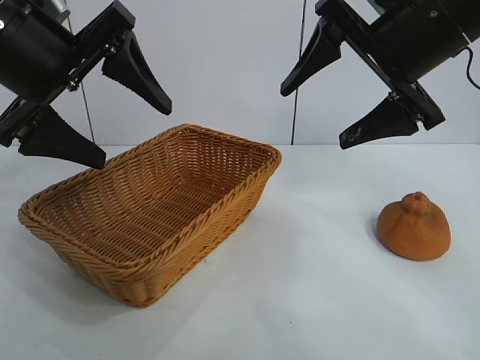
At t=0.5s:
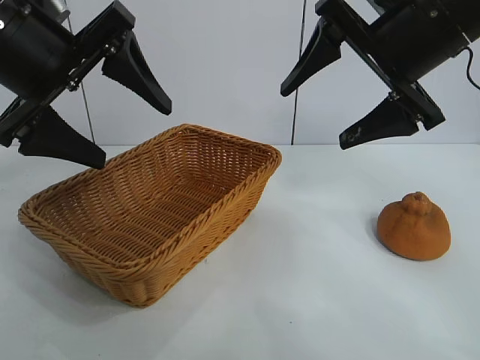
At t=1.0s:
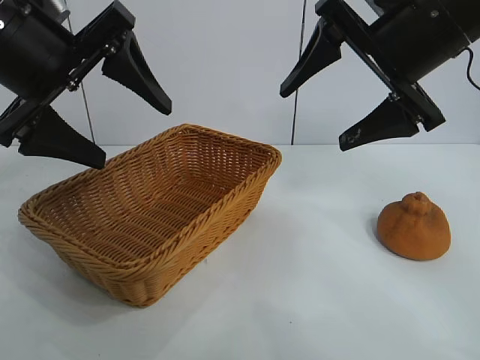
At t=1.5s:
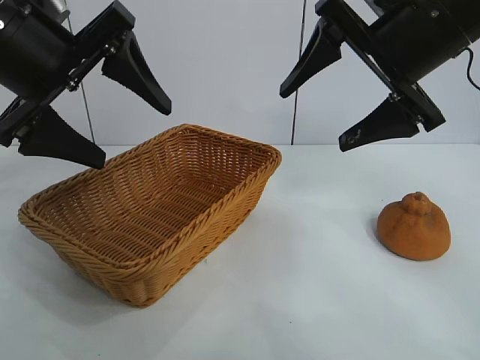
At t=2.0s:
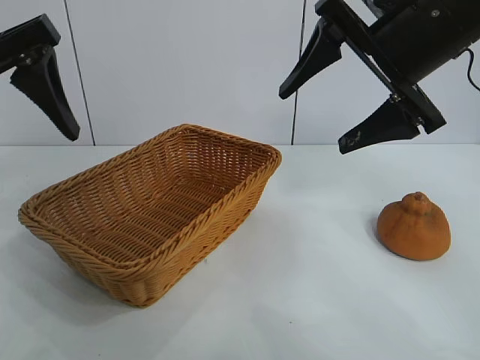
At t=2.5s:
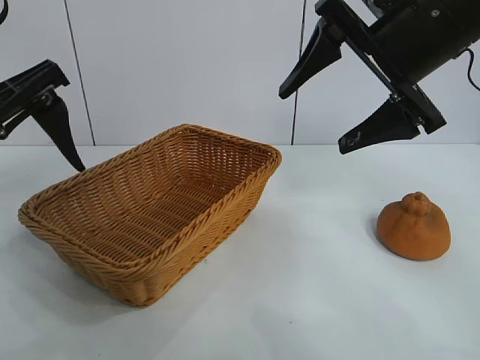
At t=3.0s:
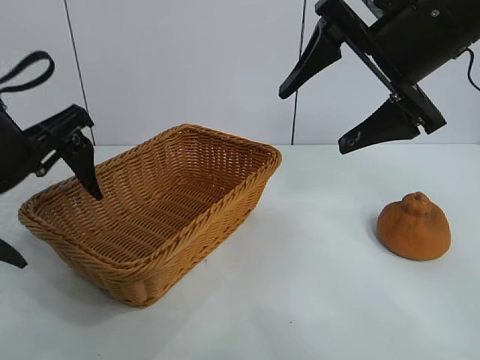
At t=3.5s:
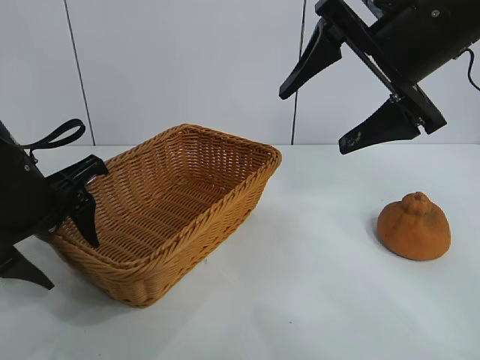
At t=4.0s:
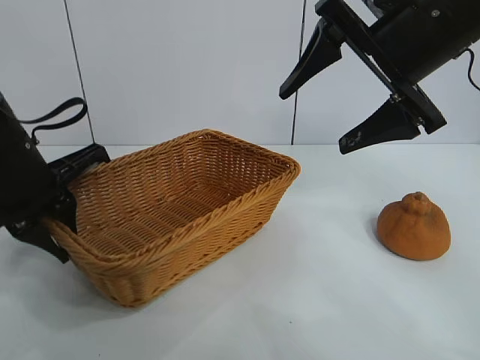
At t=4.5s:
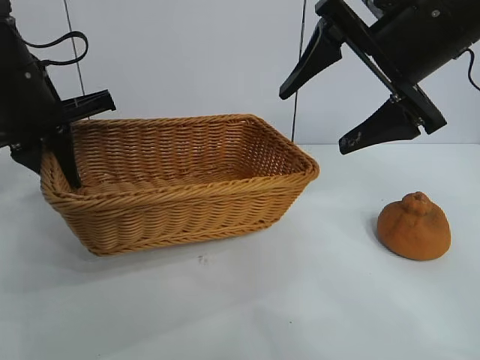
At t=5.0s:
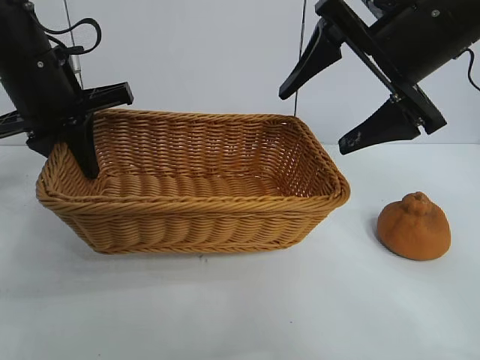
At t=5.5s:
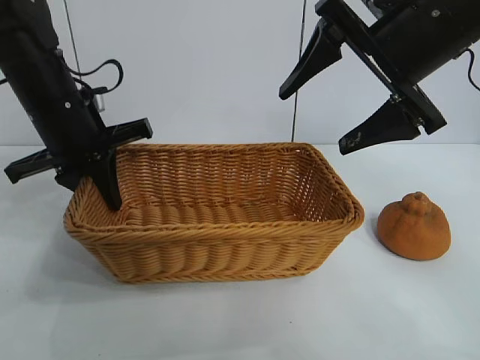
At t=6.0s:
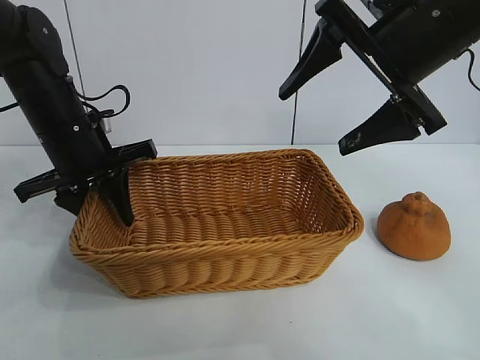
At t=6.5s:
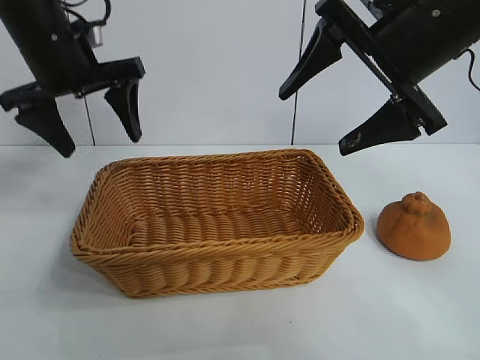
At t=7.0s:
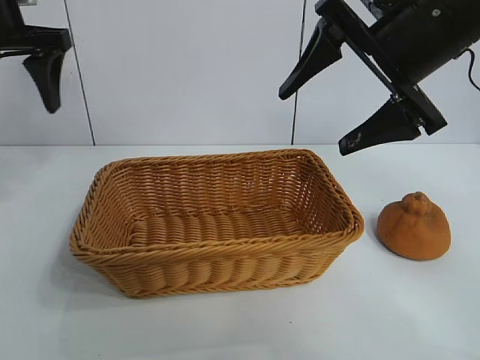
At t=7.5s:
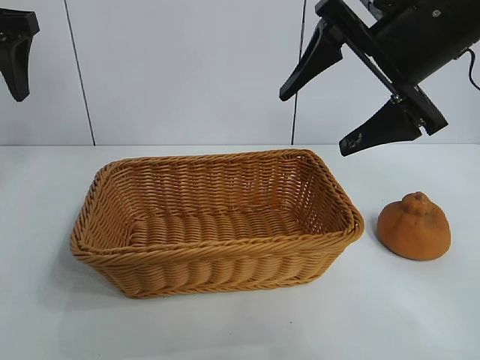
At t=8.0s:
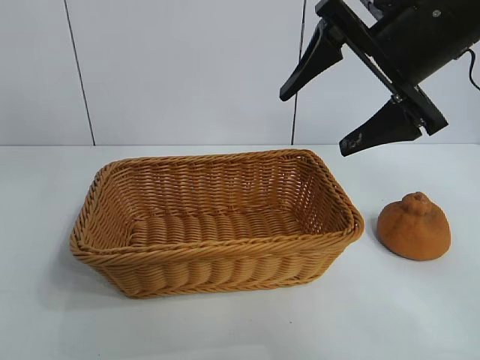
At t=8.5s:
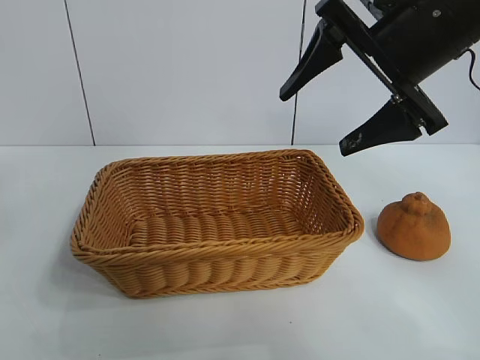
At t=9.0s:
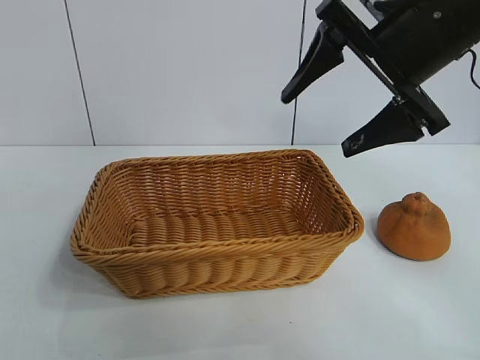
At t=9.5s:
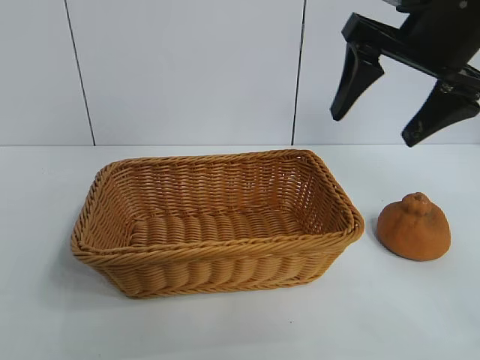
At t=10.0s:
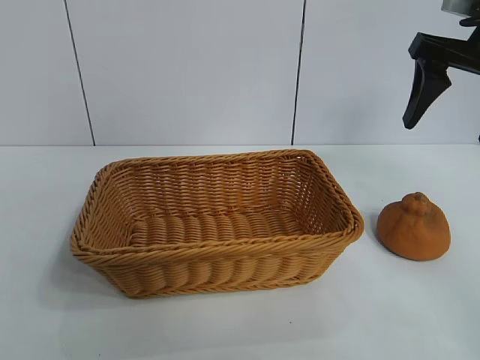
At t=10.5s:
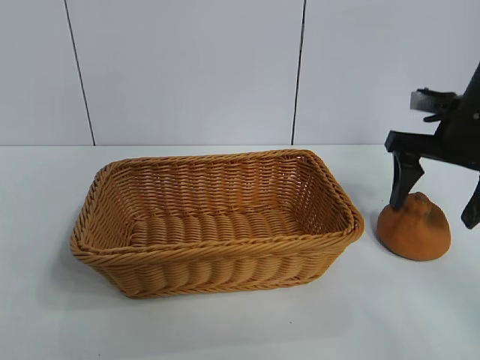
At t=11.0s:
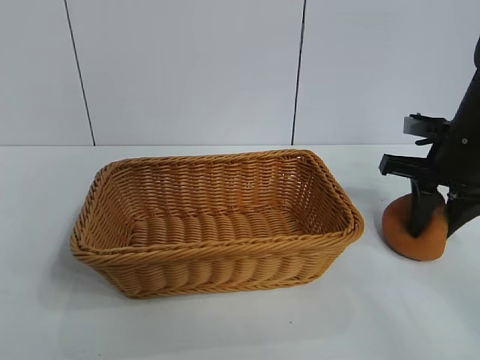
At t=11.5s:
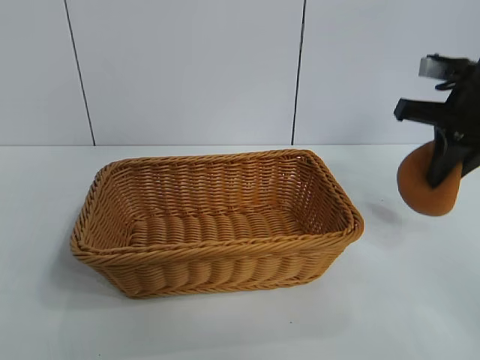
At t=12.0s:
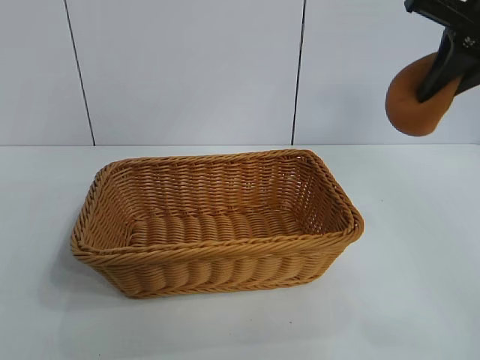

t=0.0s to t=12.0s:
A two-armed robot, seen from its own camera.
Task of the whole recording: pick up the orange and put it into the basket.
Step, t=1.5s to t=3.5s: Grasp the basket with left gripper.
Step, t=4.0s to t=6.0s: Place the basket in the center of view with left gripper.
Step, t=6.5s to t=11.0s: Grasp the orange with right gripper.

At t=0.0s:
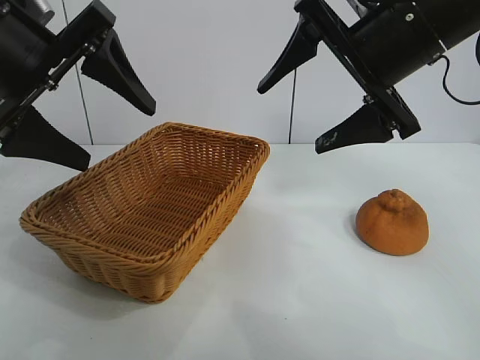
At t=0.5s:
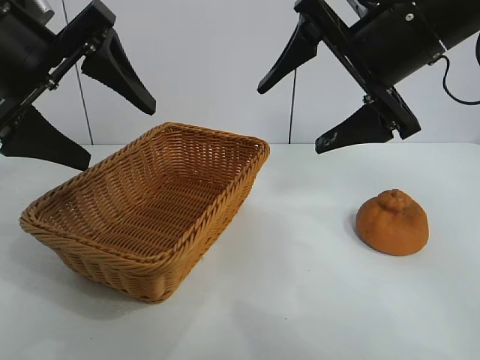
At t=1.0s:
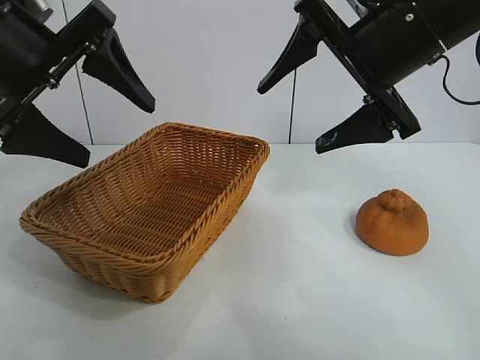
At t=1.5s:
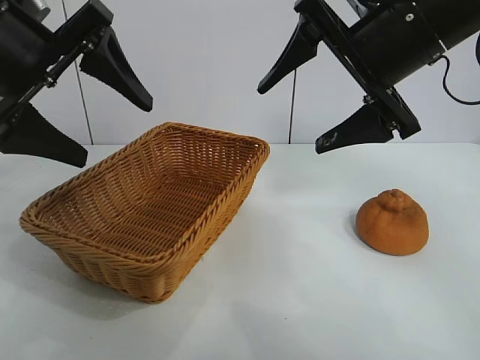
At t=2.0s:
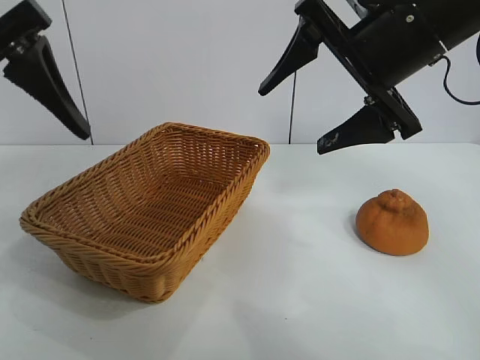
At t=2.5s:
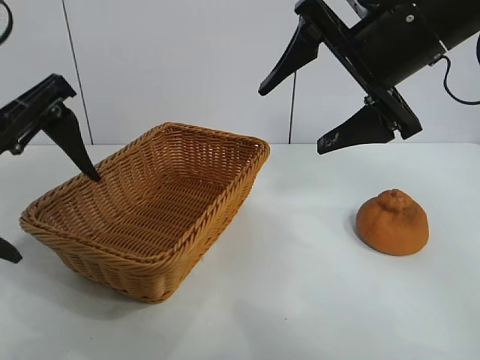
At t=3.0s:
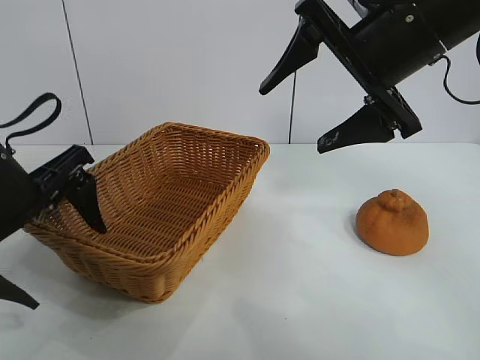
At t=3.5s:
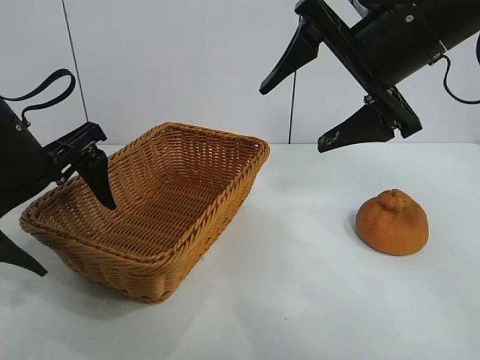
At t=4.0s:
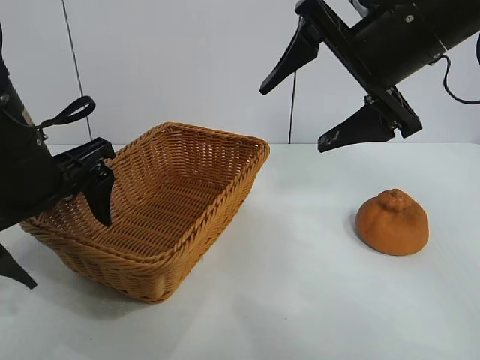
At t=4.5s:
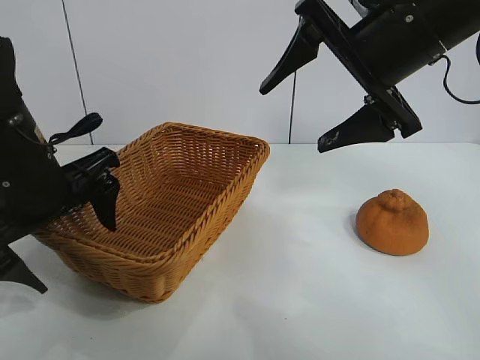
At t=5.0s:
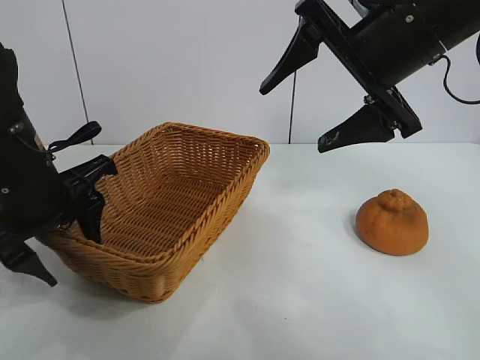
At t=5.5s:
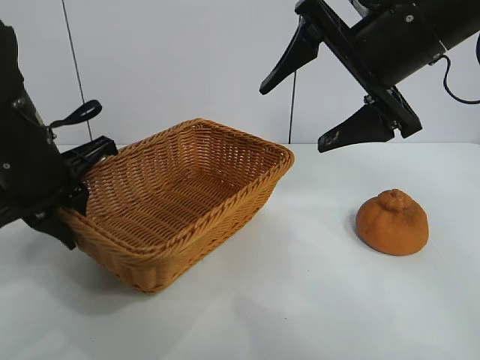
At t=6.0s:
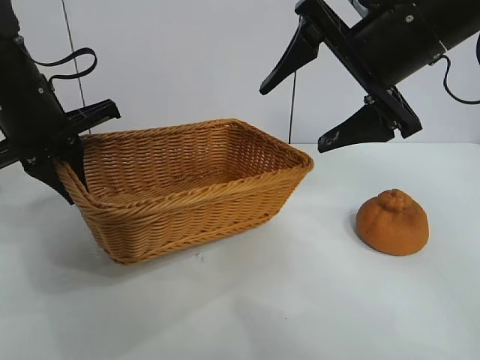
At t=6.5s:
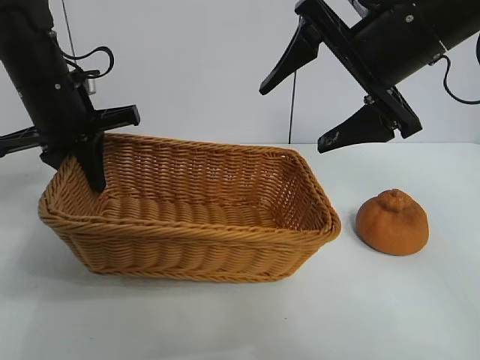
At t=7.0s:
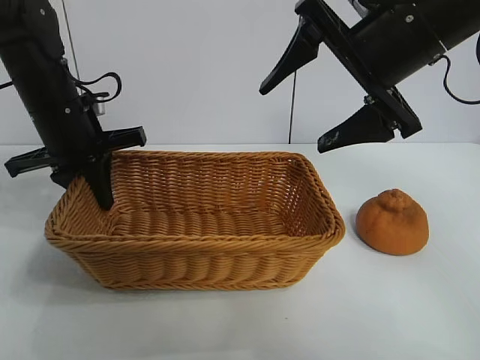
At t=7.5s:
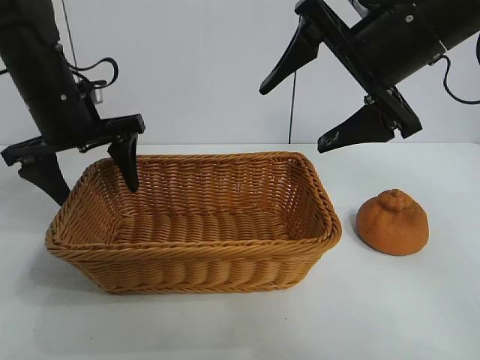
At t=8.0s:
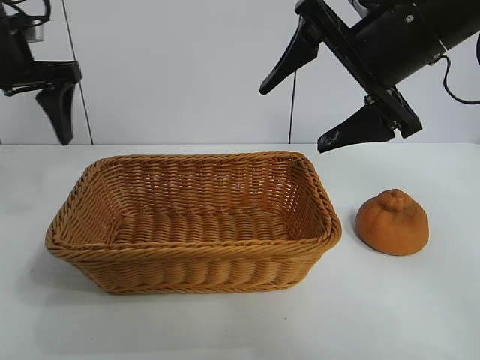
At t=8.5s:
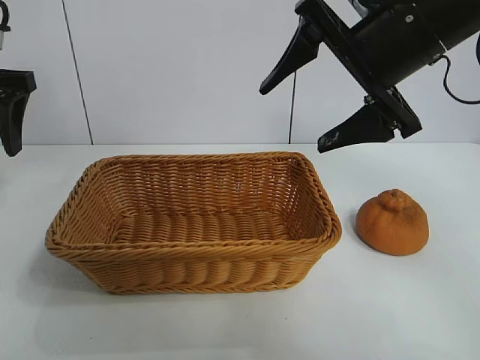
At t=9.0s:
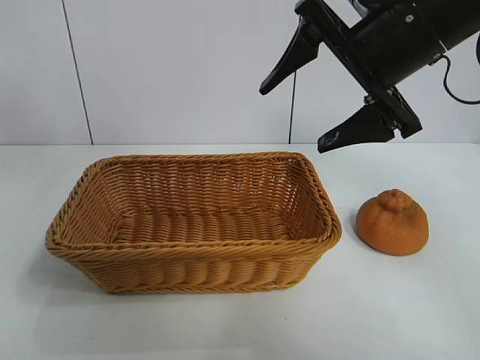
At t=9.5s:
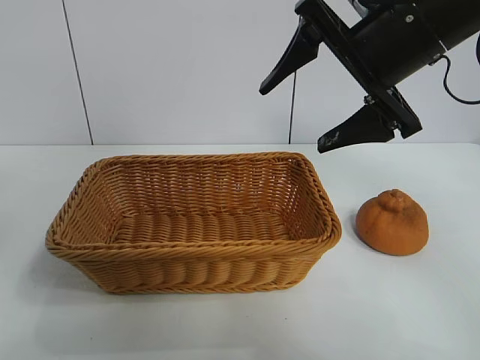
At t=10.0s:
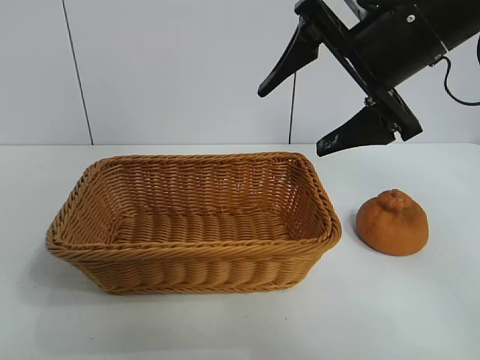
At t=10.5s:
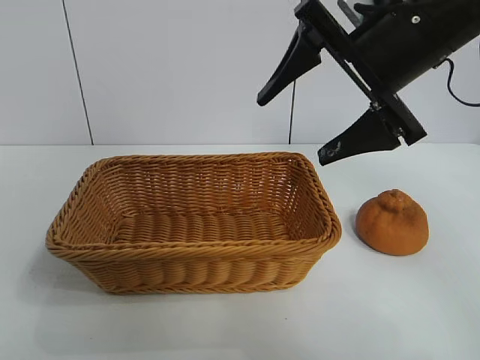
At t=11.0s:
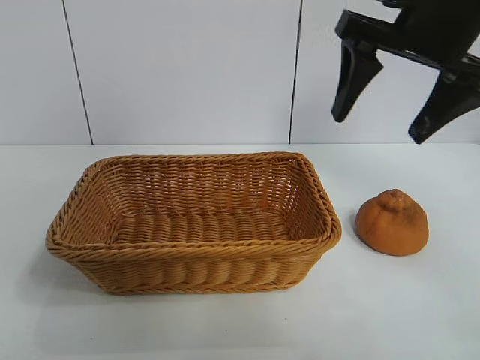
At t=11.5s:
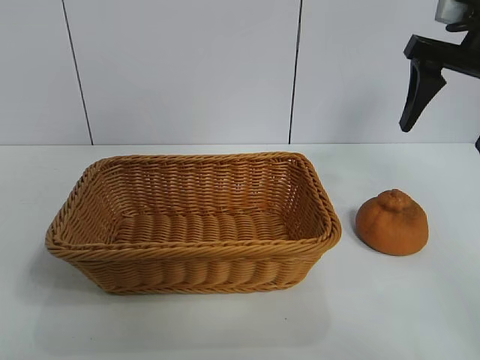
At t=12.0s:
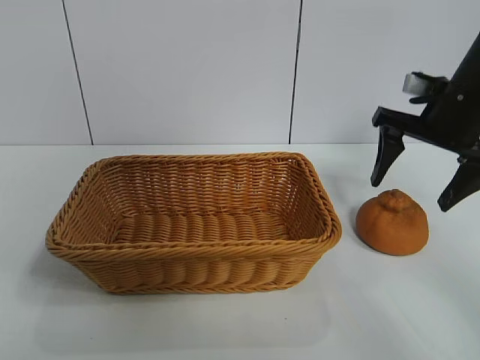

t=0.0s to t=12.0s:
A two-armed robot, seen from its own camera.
Task of the whole recording: pick up the orange and put it into the basket.
Step, t=1.0s to t=5.0s: Grasp the basket with left gripper.
Step, t=5.5s to t=7.0s: Place the basket in the center of view with left gripper.

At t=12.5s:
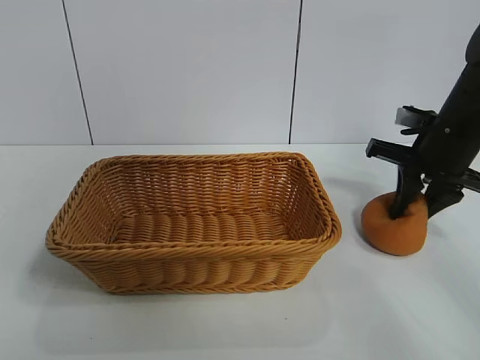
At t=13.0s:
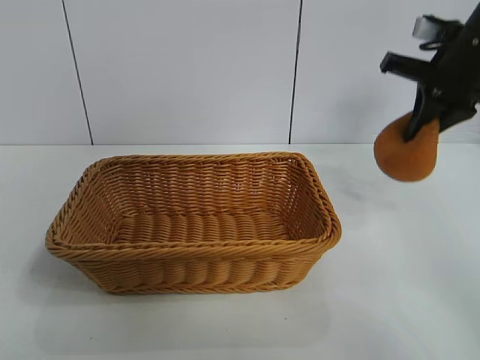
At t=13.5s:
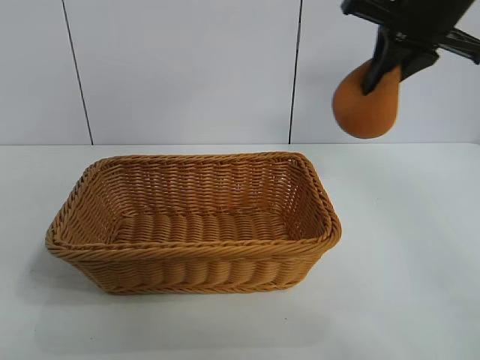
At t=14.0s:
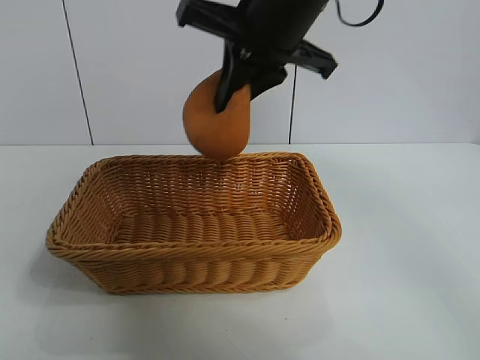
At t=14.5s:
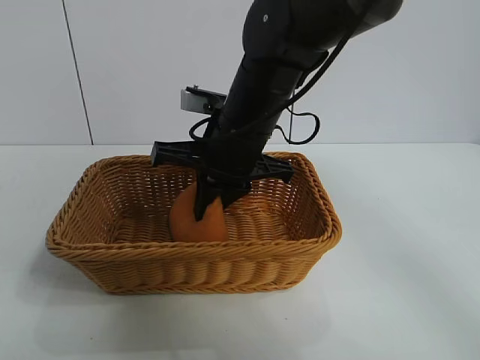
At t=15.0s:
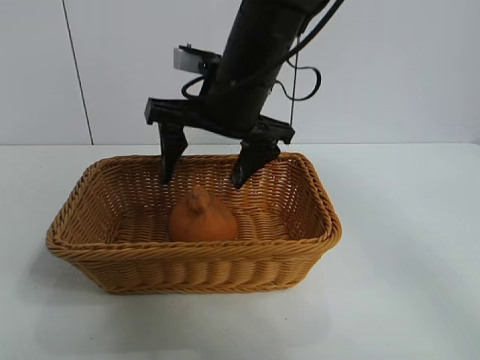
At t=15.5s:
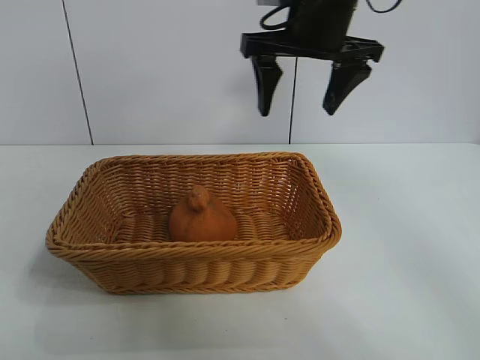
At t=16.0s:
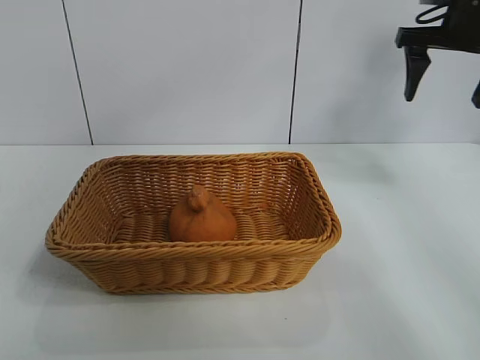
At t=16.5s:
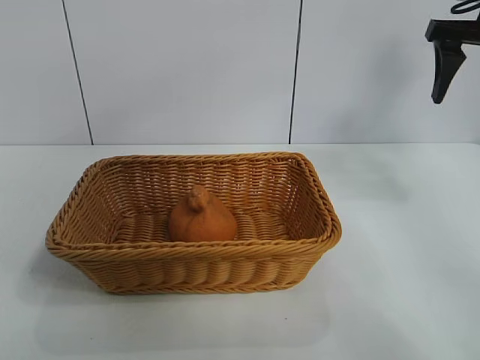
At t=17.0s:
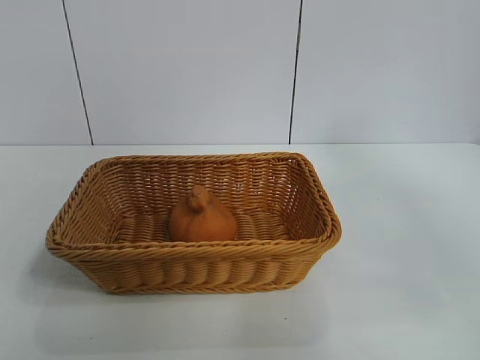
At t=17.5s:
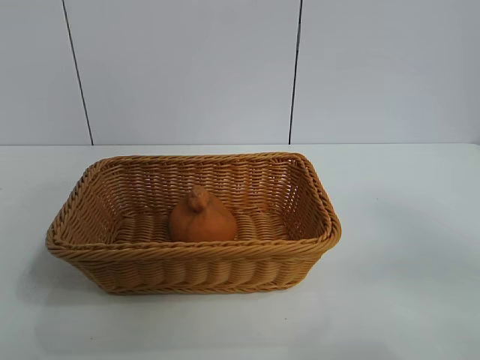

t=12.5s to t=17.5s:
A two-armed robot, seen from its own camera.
Task of the whole recording: pick up the orange and put it into the basket.
Step, t=13.0s to t=14.5s: Place the orange in the basket with right gripper.